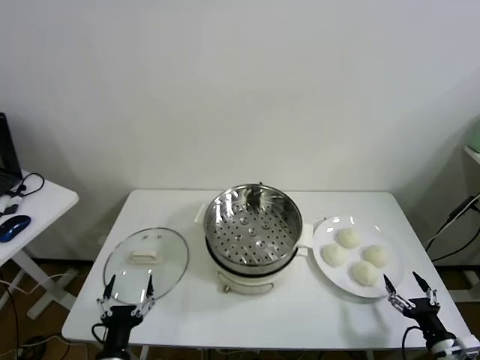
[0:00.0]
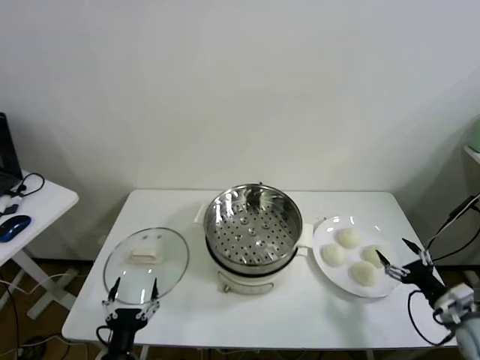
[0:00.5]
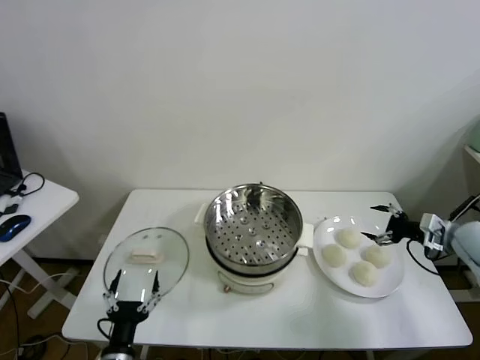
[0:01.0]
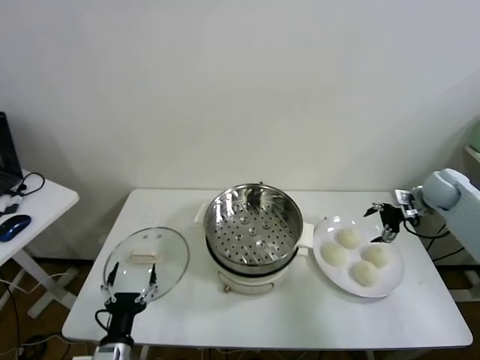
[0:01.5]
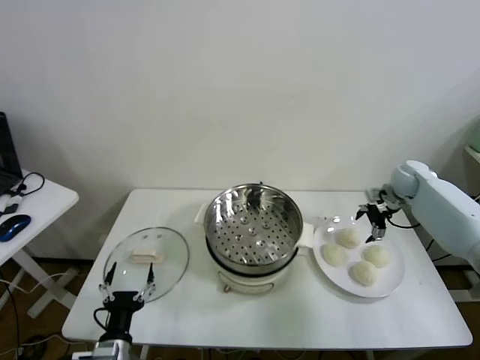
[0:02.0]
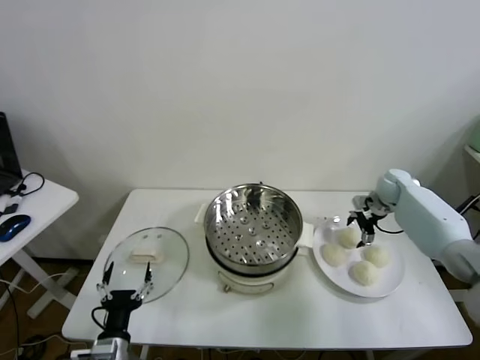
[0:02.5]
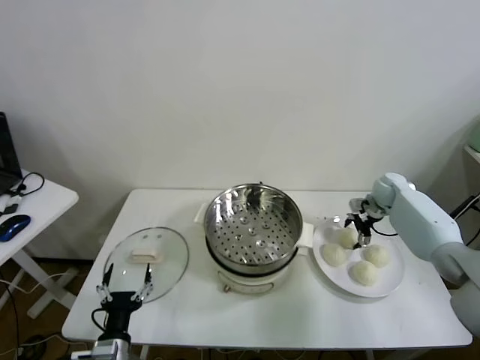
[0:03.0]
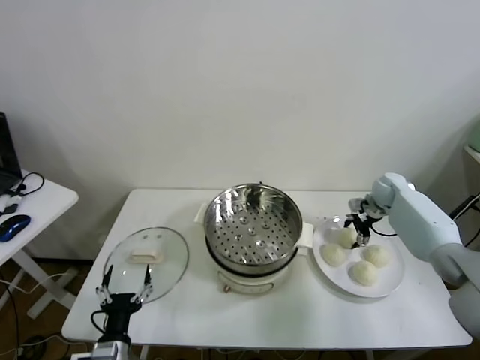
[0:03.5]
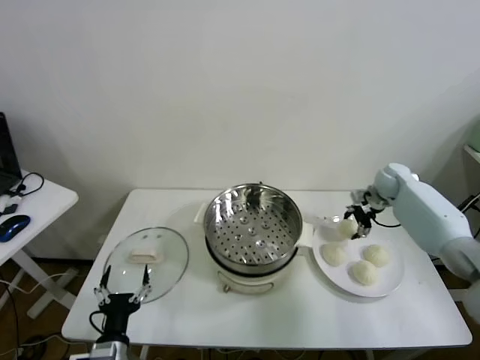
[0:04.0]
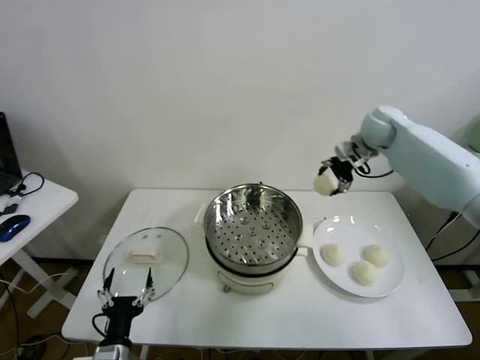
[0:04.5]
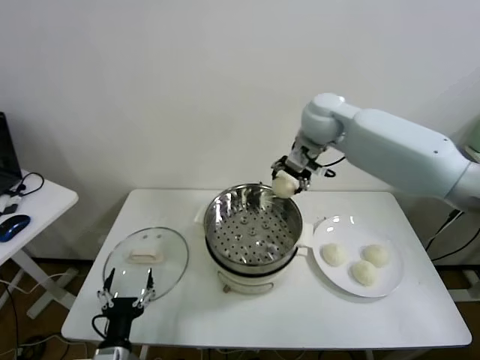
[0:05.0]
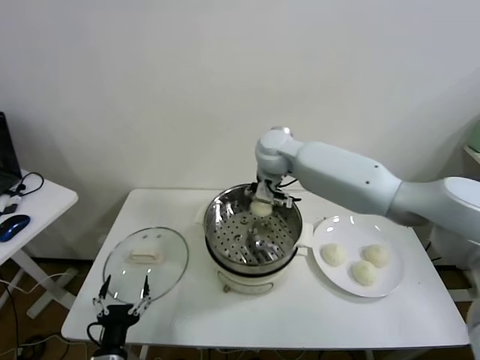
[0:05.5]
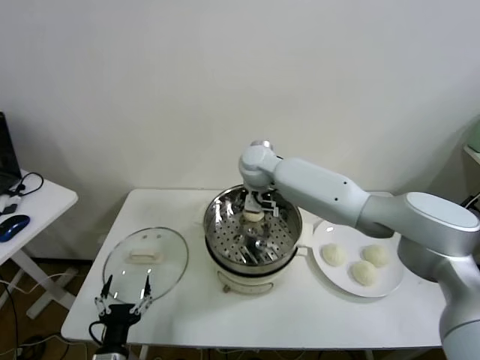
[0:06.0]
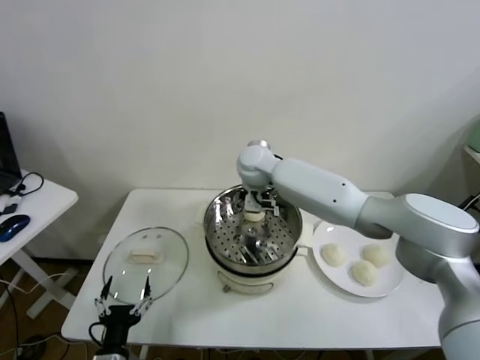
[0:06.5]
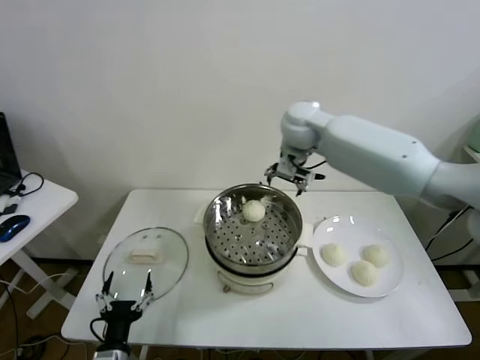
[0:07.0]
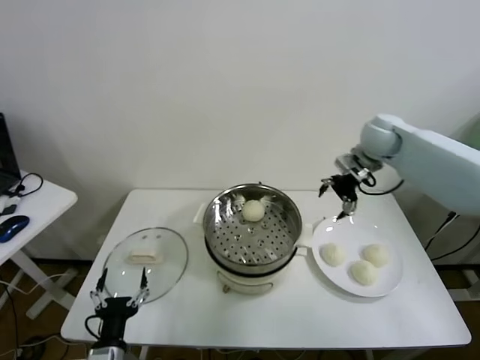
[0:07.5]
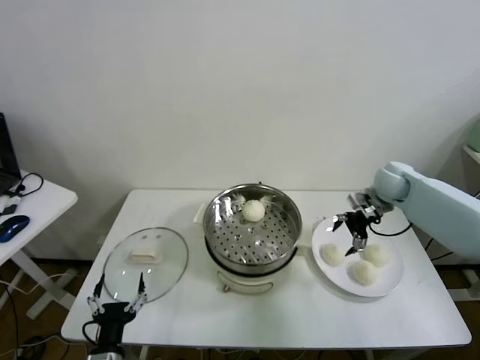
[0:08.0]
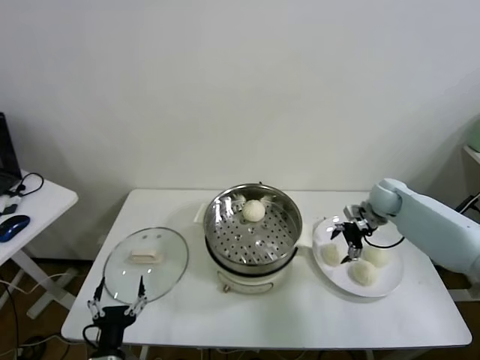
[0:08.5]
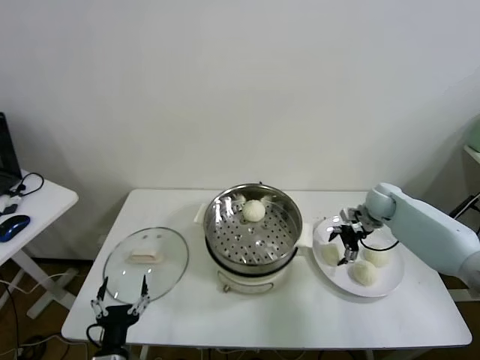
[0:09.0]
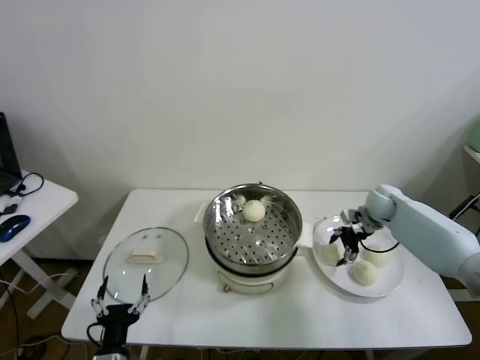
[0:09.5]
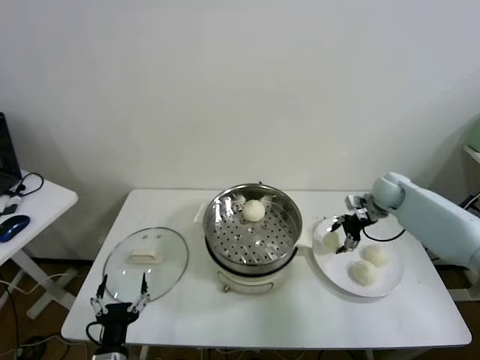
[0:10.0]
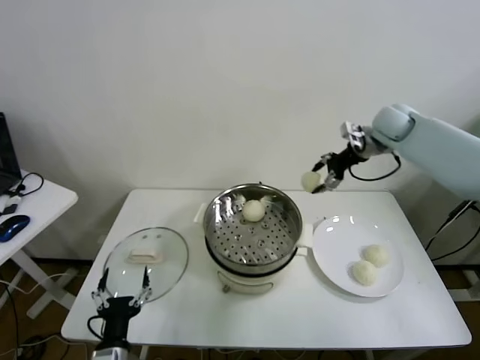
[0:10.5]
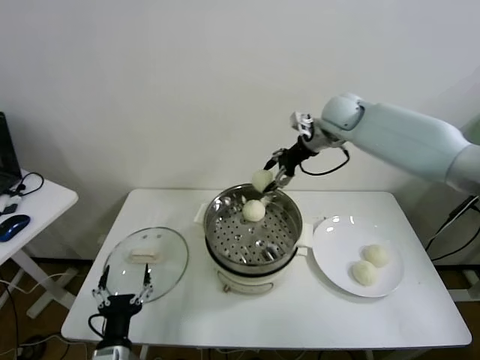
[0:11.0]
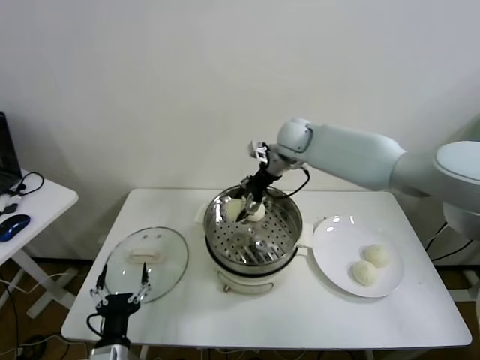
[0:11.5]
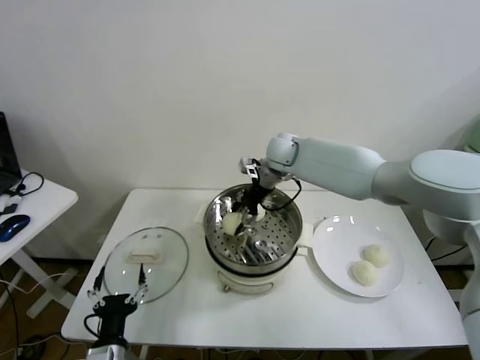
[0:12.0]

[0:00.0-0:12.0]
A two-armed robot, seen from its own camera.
Task of the whole recording: take steamed baozi put them in steamer.
Step, 0.0 to 3.5 s: Grasp the baozi in the plate with right gripper.
Step, 4.0 to 6.5 s: Place the baozi on the steamer with right gripper.
Step, 7.0 to 9.5 s: Grasp the baozi in the plate with right gripper.
2.0 to 4.0 s: The right gripper closes its fingers.
4.0 to 6.0 s: The right gripper travels to the left by about 40 cm.
6.0 to 8.0 s: The right gripper heads to the right, covering roughly 35 cm, and opens up.
8.0 to 10.0 s: The right gripper closes its fingers.
10.0 to 12.0 s: The right gripper is displaced to the left by some 30 cm.

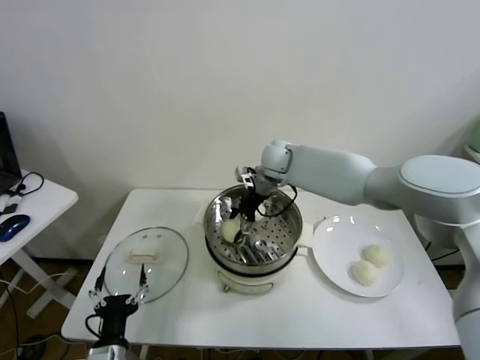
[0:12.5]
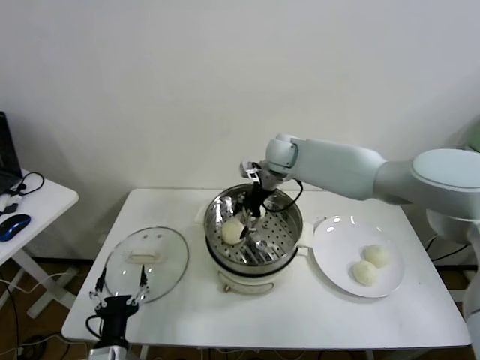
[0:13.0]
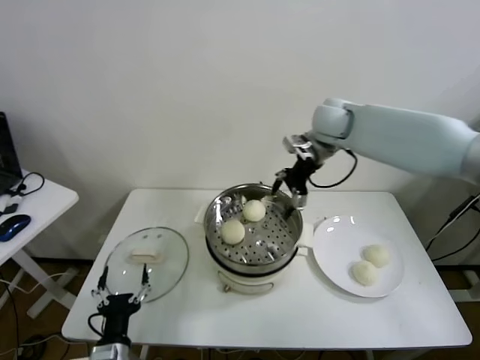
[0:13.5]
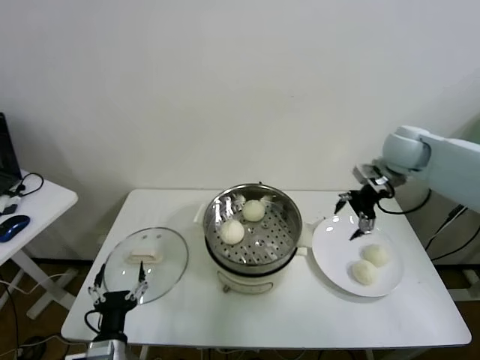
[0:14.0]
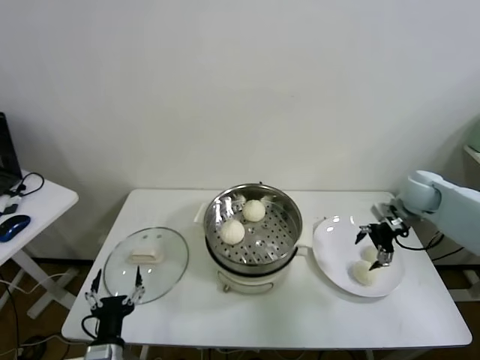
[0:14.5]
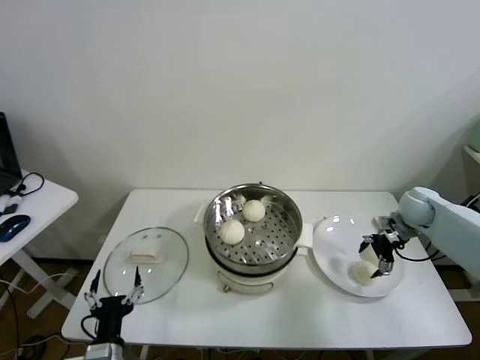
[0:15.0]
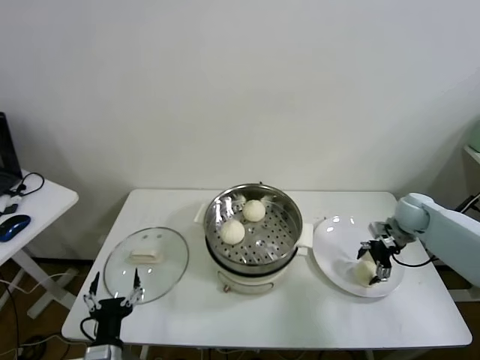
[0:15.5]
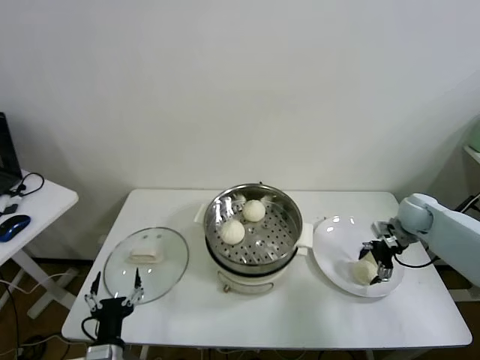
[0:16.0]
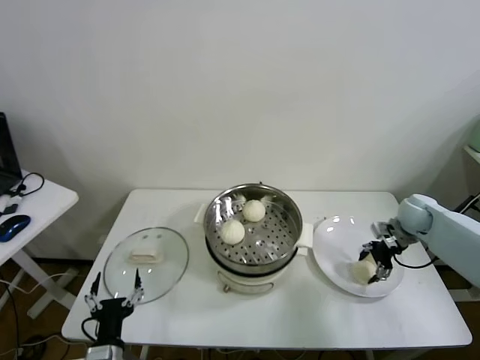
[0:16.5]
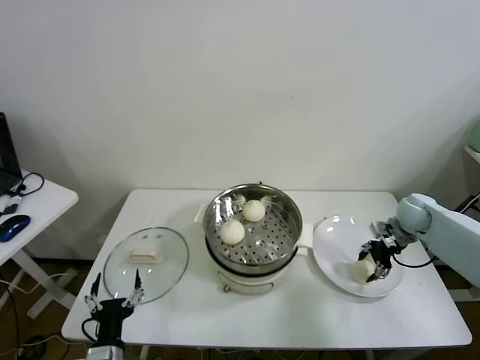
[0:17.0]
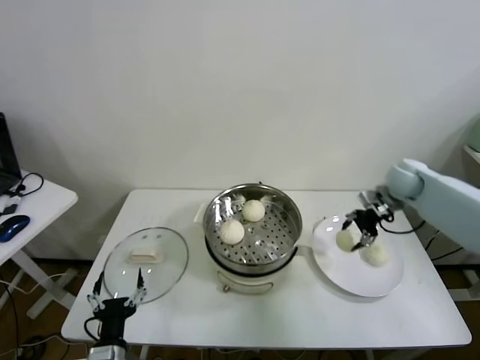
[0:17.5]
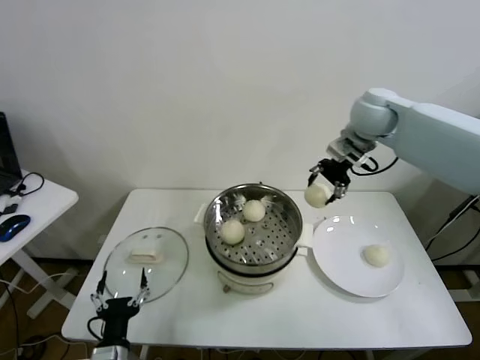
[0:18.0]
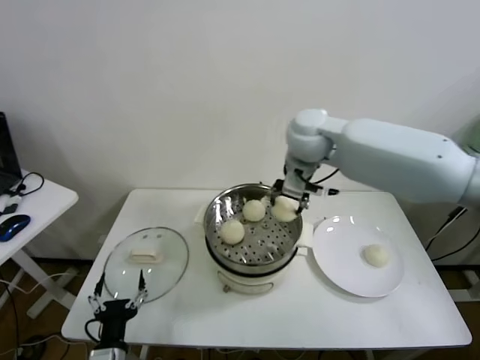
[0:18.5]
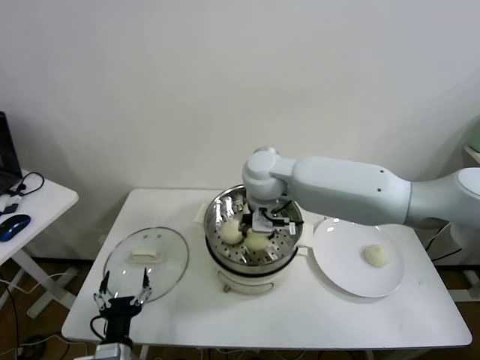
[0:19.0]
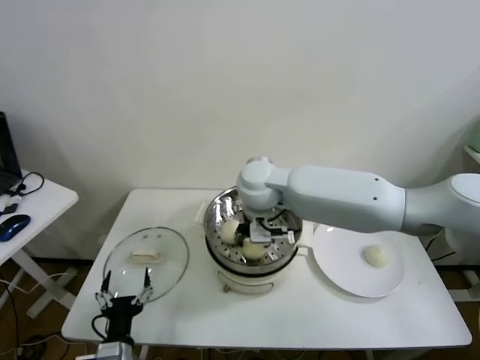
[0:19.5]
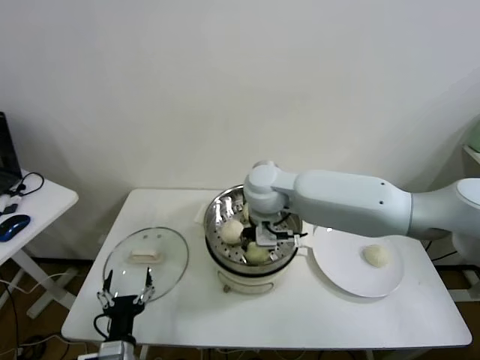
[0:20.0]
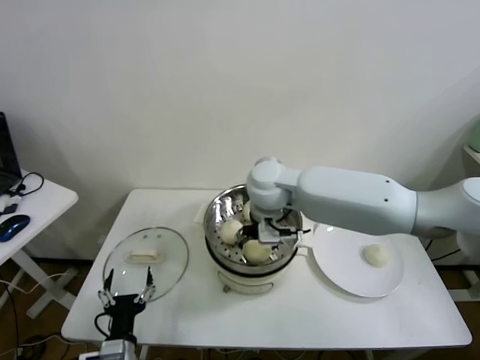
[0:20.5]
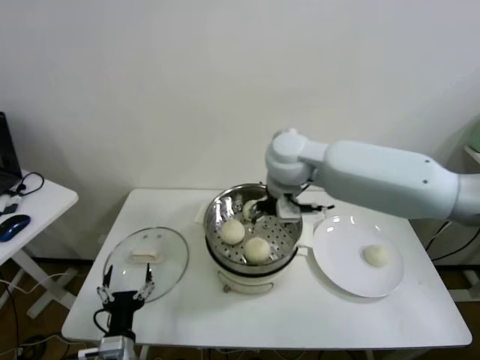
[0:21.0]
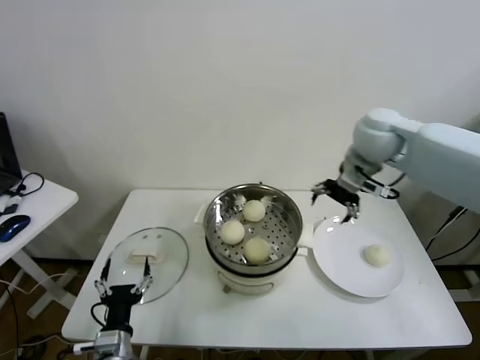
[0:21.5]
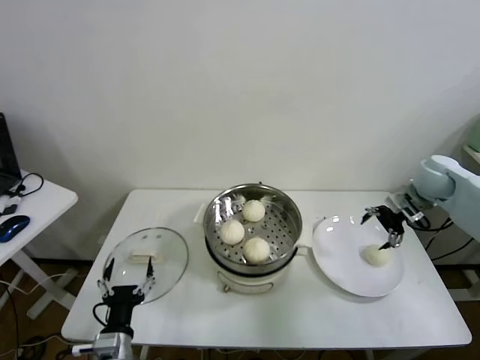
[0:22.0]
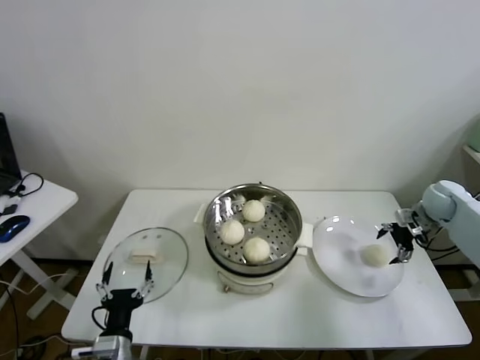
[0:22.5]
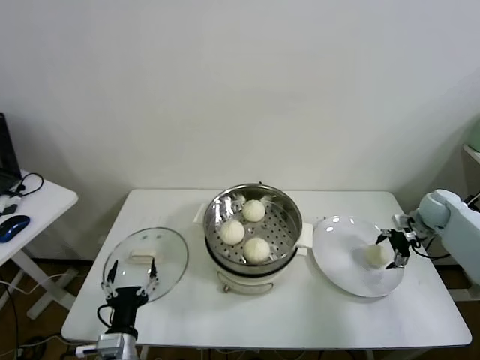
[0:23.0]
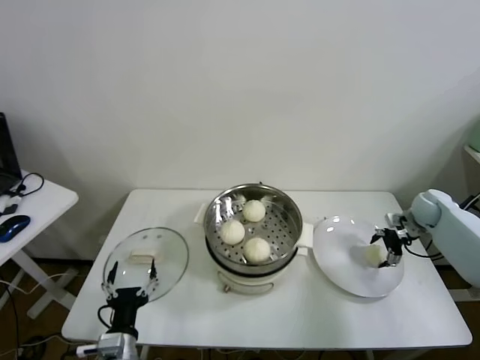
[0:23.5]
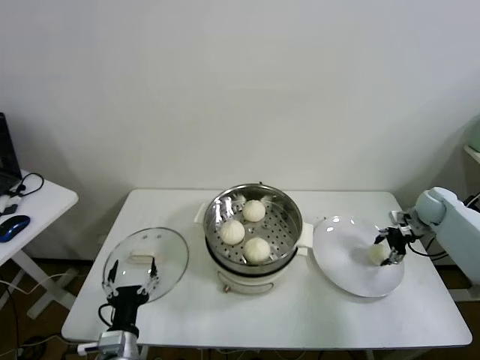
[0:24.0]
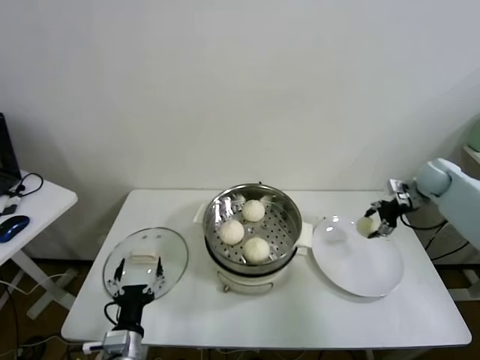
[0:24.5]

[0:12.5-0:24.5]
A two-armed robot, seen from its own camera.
Task of the whole recording: take steamed baozi put them in steamer.
Step, 13.0 to 16.0 s: Grasp the baozi in the plate with right gripper.
Step, 16.5 to 20.5 s: Place the baozi on the steamer with right gripper.
Step, 21.0 to 23.5 s: Grasp the baozi in the plate with right gripper.
12.5 to 14.5 s: The right gripper heads to the right, covering some 35 cm.
14.5 to 16.5 s: The right gripper is displaced downward by approximately 5 cm, and closes.
16.5 to 18.5 s: The right gripper is displaced to the left and upward by approximately 40 cm.
18.5 to 20.5 s: The right gripper goes some 10 cm downward and to the left, and opens its fingers.
20.5 to 22.5 s: The right gripper moves to the right, approximately 50 cm.
22.5 to 24.5 s: The right gripper changes place by roughly 5 cm, and closes.

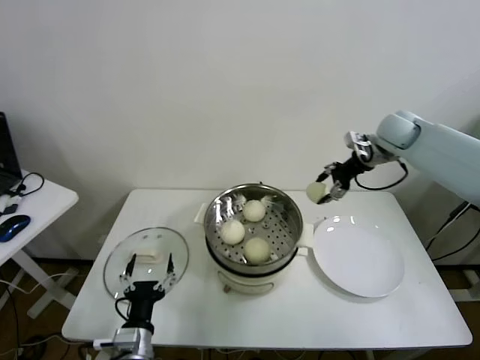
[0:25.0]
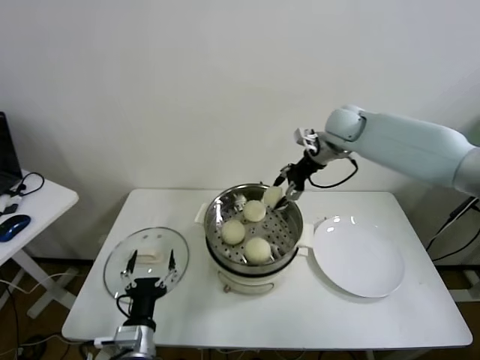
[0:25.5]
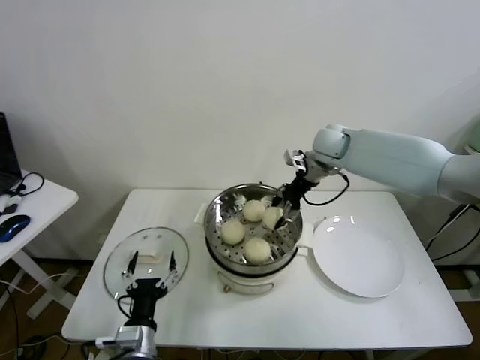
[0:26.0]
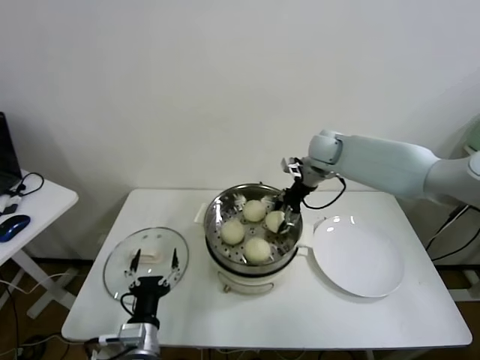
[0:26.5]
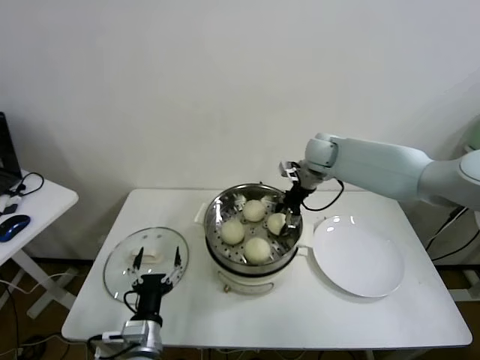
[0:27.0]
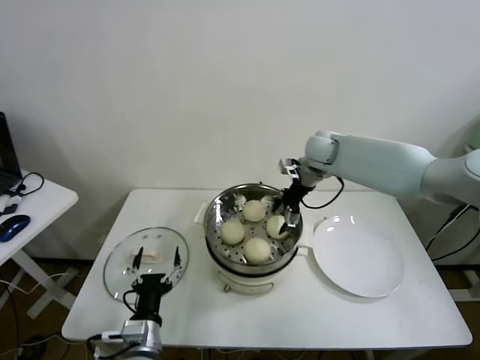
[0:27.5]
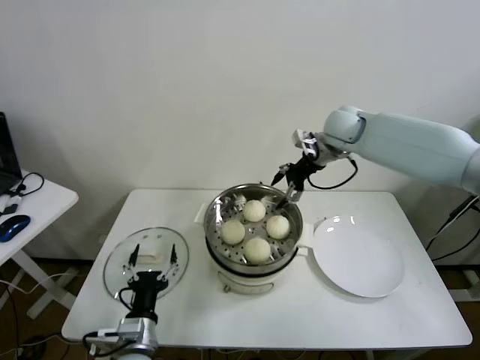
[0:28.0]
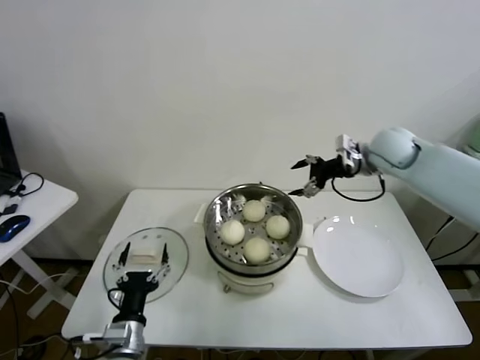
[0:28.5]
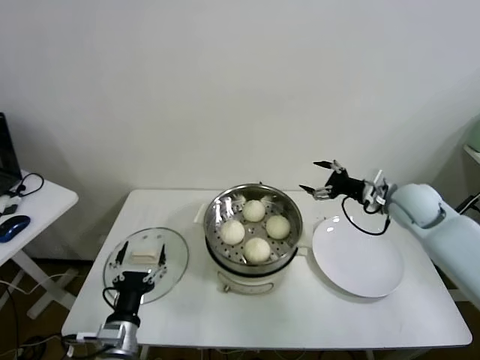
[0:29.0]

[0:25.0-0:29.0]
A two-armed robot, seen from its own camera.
Task of the whole recording: take steamed baozi put them in steamer.
Step, 25.0 to 27.0 s: Place the baozi on the steamer with right gripper.
25.0 to 27.0 s: The right gripper is displaced to the left by approximately 15 cm.
27.0 to 29.0 s: The right gripper goes some 20 cm to the right and backward, and opens up; the left gripper shifts by some 5 cm.
